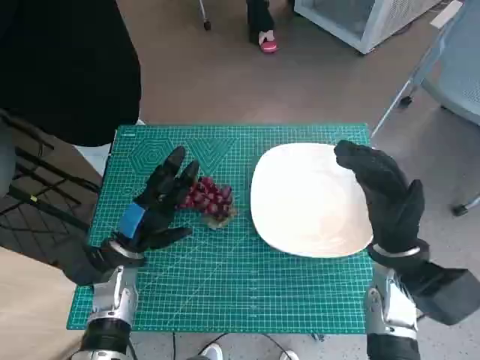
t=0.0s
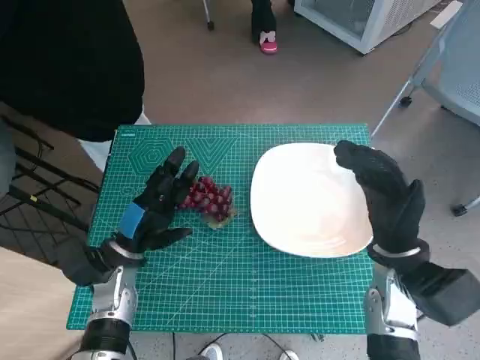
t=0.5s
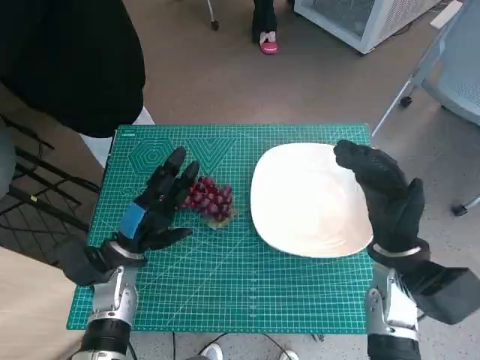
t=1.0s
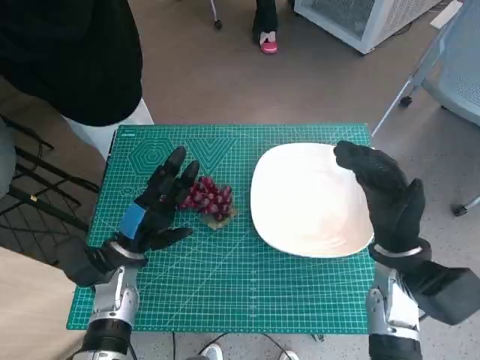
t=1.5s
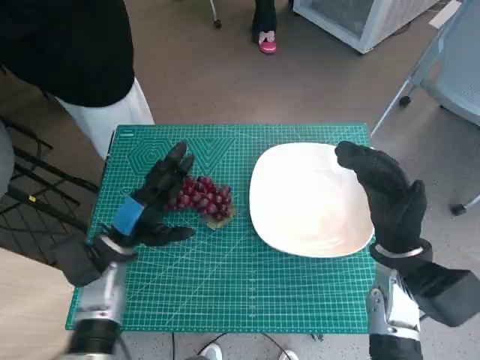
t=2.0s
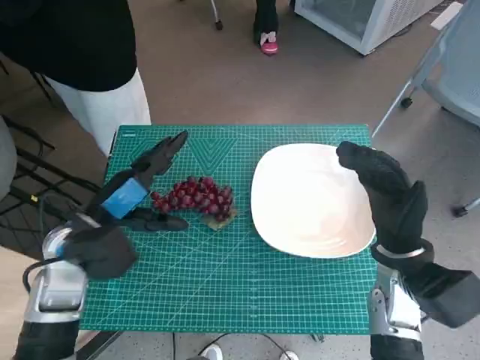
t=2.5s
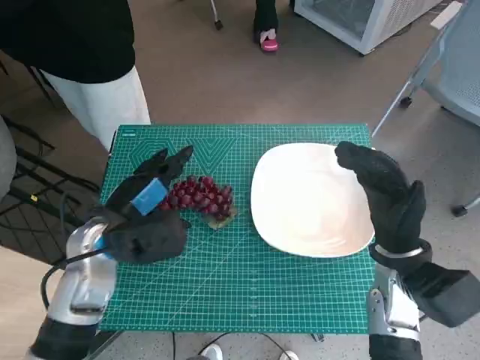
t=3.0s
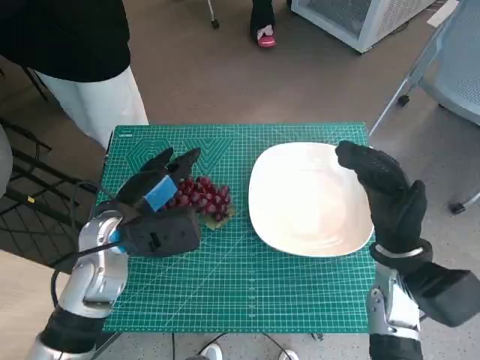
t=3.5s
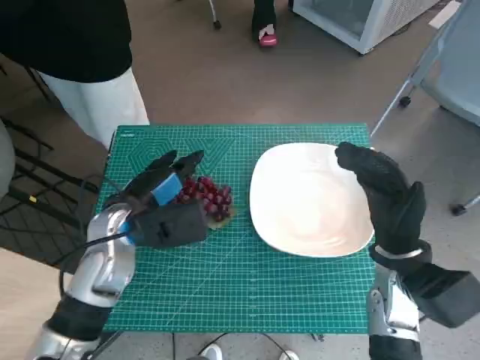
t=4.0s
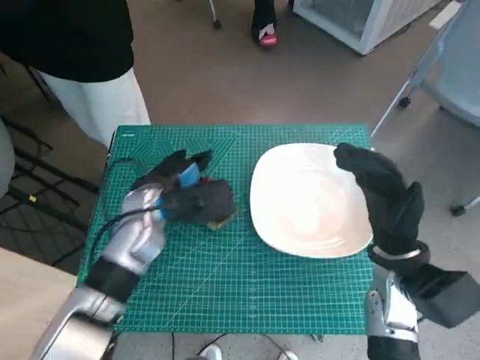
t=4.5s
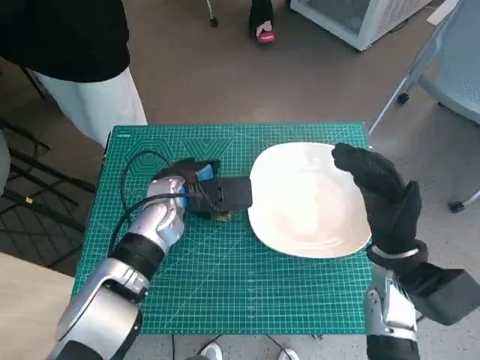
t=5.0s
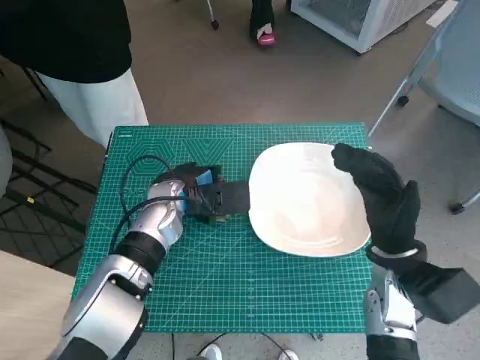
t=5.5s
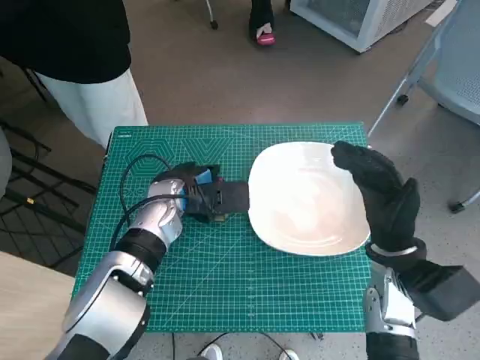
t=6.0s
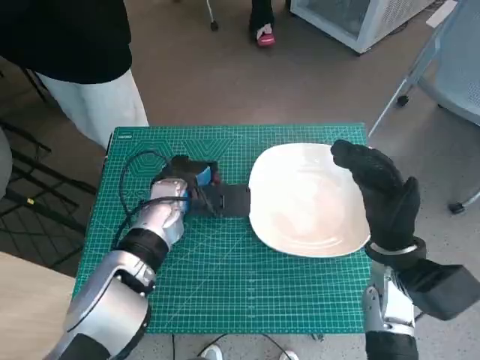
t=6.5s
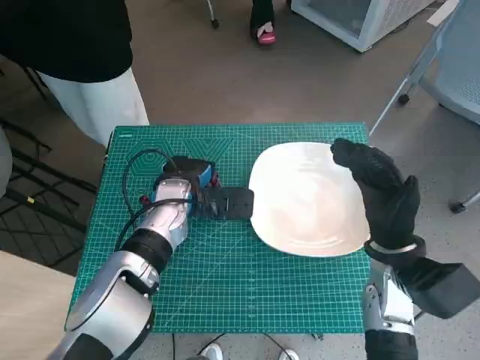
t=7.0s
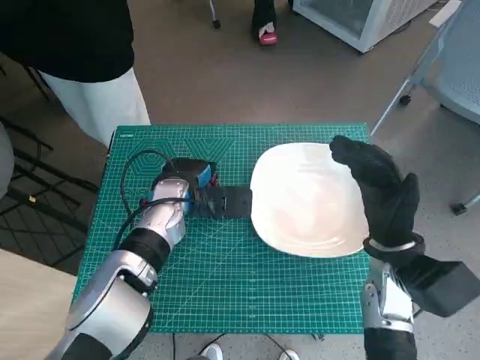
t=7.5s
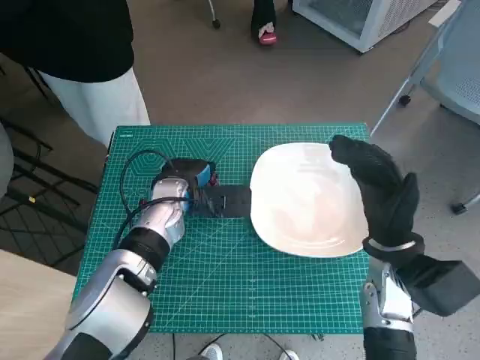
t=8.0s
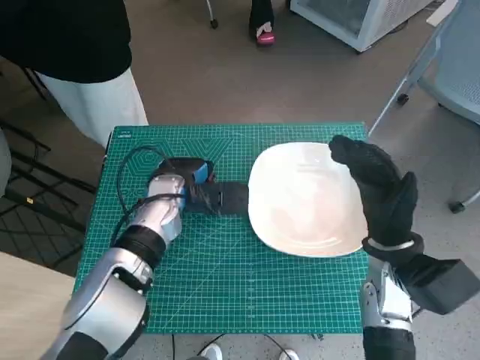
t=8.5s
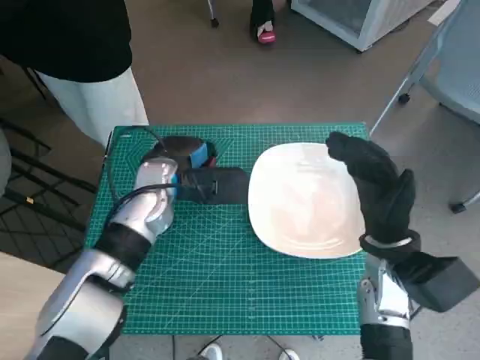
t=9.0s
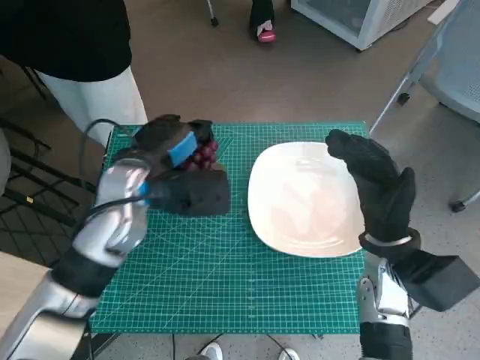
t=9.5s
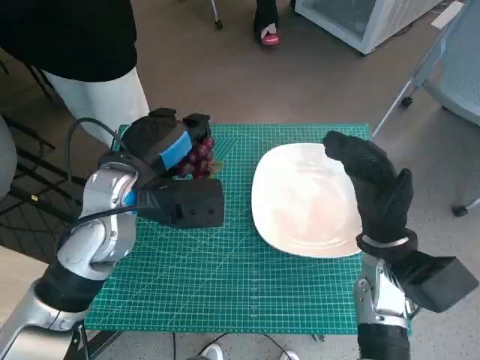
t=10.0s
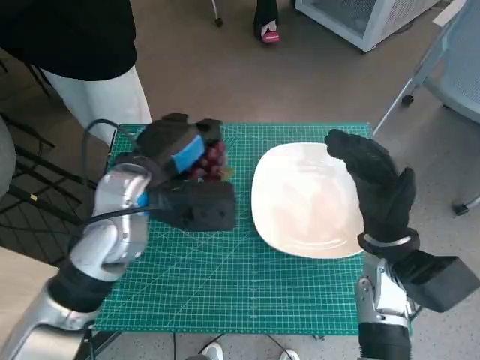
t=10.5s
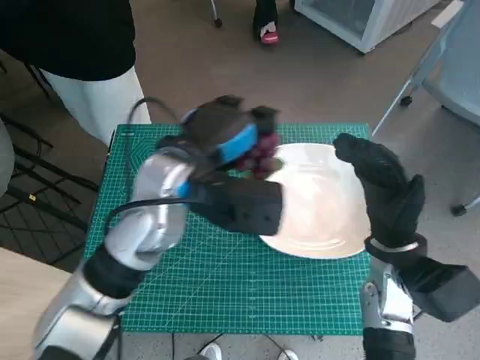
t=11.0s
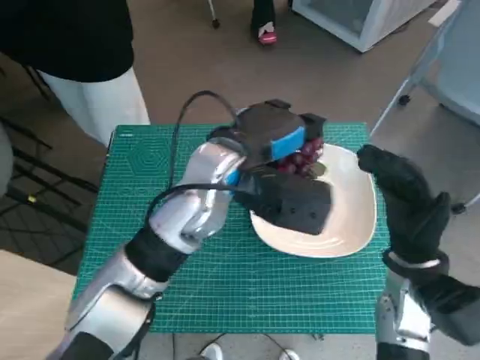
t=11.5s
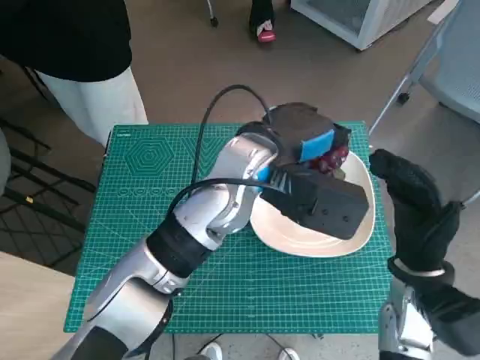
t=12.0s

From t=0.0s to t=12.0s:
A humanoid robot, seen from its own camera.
Task of the whole recording: Pick up the grapes and put them on the plate.
Step, from t=0.0s to t=6.5s: Grasp the grapes with left hand.
From t=2.0s to t=4.0s: The left hand shifts roughly 10 cm upward.
From t=4.0s to t=6.0s: The left hand moves forward, about 5 cm.
From t=6.0s to t=8.0s: There are only small adjustments of the hands.
From t=8.0s to t=10.0s: The left hand is displaced upward and backward by some 10 cm.
From t=10.0s to t=12.0s: The left hand goes approximately 15 cm to the right.

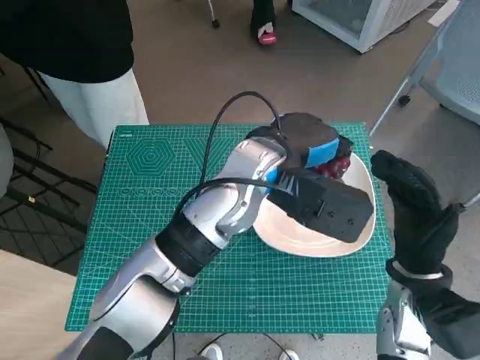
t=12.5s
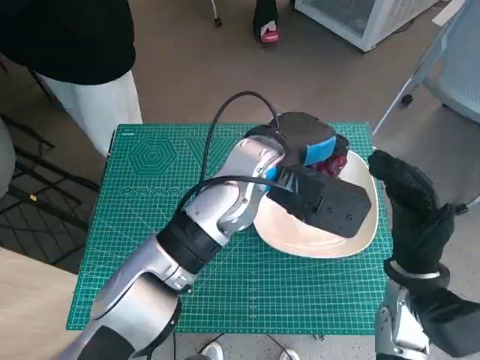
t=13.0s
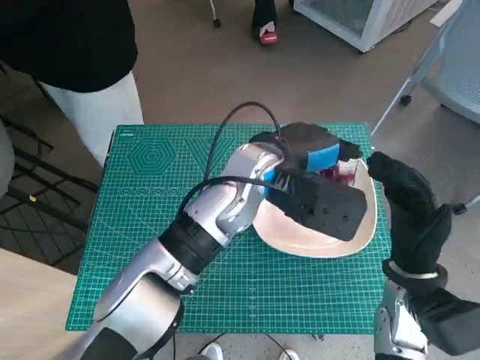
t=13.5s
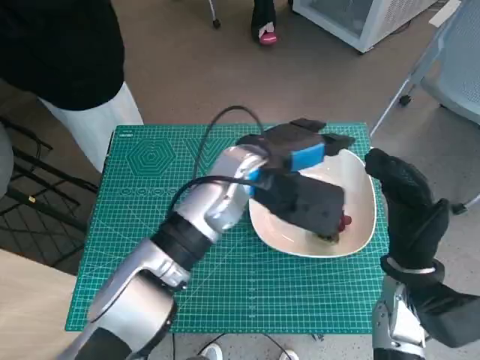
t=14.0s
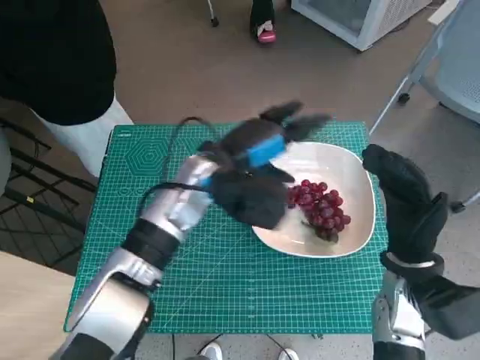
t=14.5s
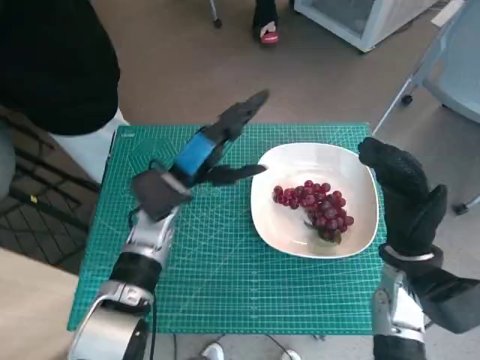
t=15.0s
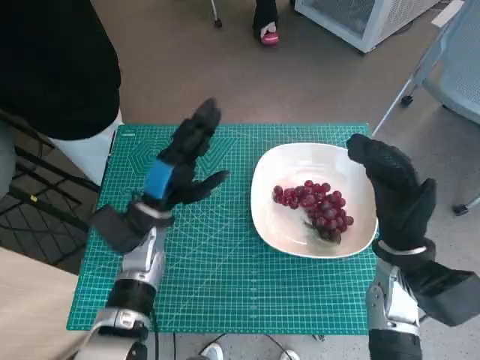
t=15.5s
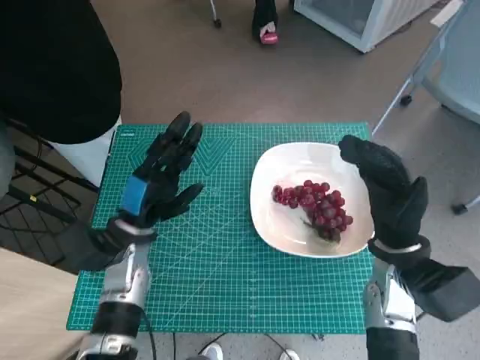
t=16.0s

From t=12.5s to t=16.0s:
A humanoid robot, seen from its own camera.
Task of the whole recording: Pick up the grapes and put them on the plate.
From t=12.5s to t=14.5s: The left hand travels to the left and downward by some 10 cm.
From t=14.5s to t=16.0s: The left hand moves to the left, downward and backward, some 15 cm.

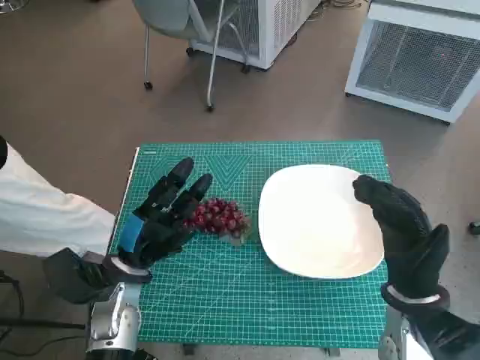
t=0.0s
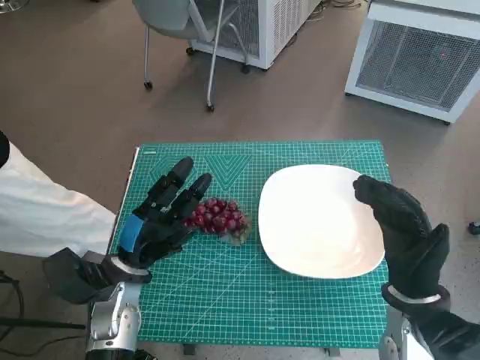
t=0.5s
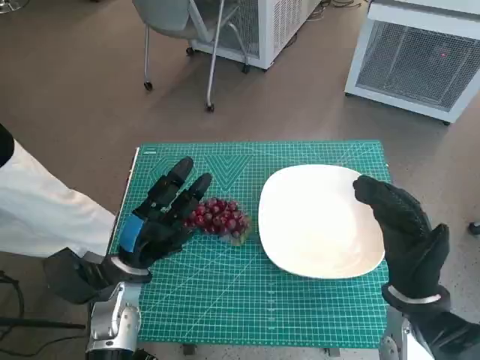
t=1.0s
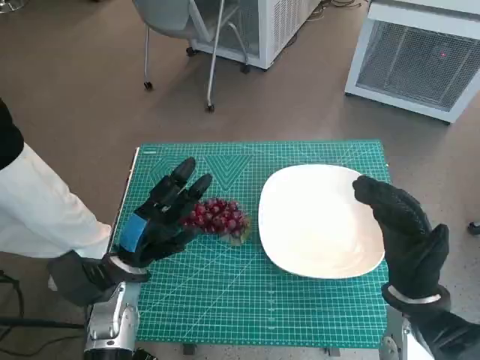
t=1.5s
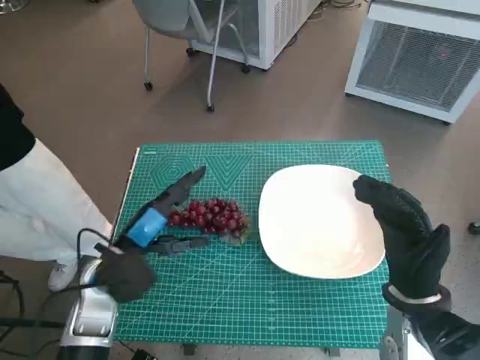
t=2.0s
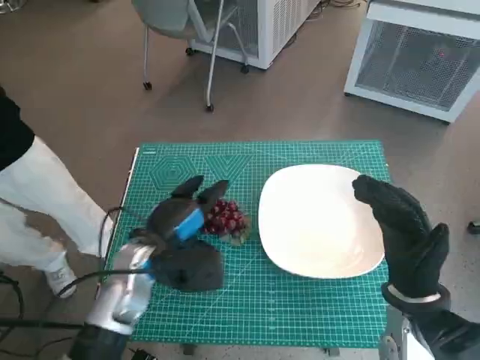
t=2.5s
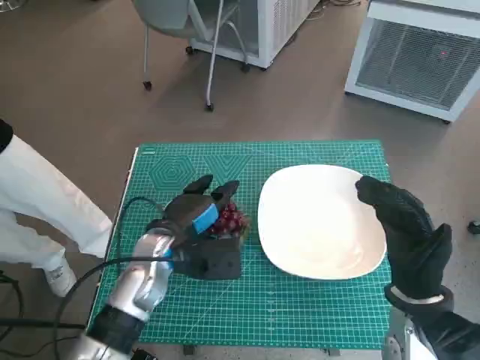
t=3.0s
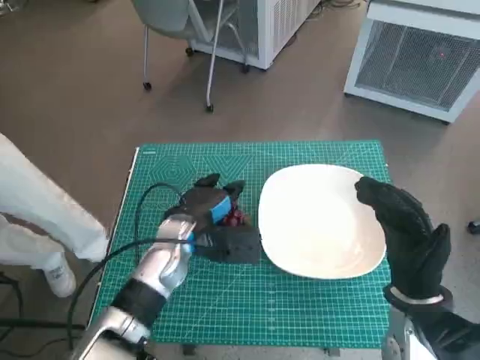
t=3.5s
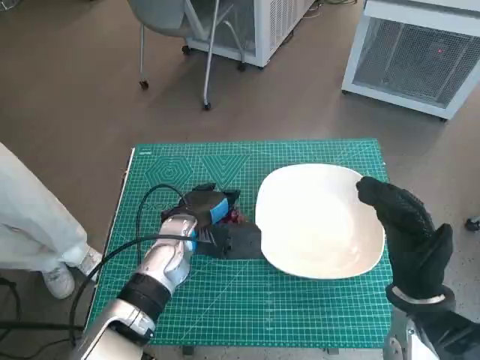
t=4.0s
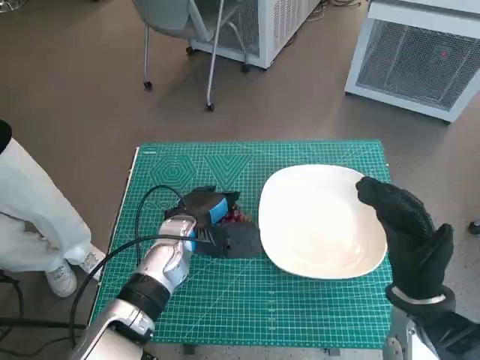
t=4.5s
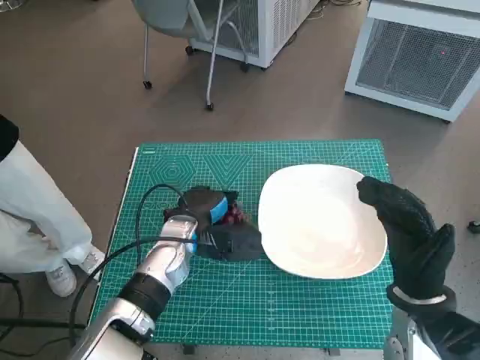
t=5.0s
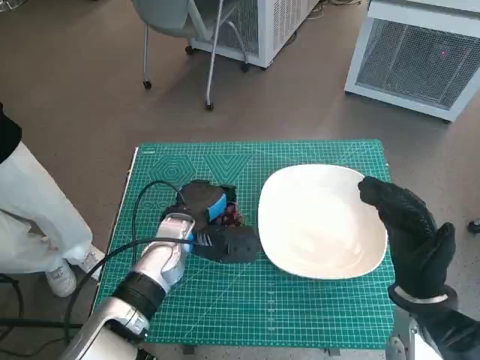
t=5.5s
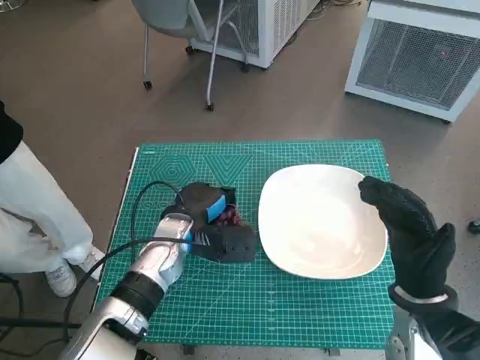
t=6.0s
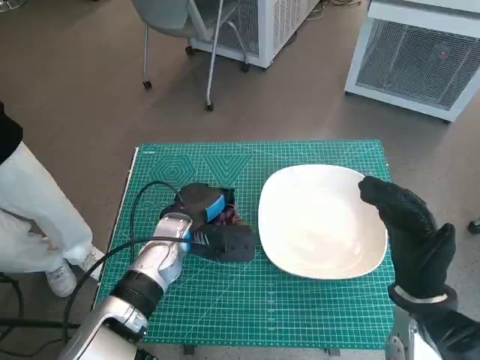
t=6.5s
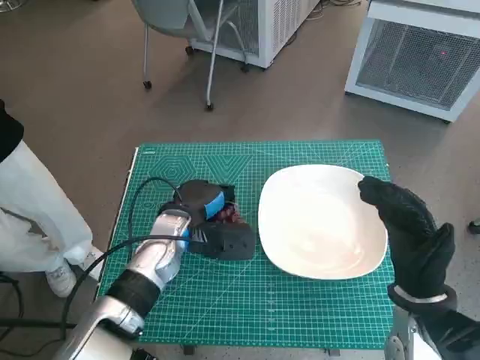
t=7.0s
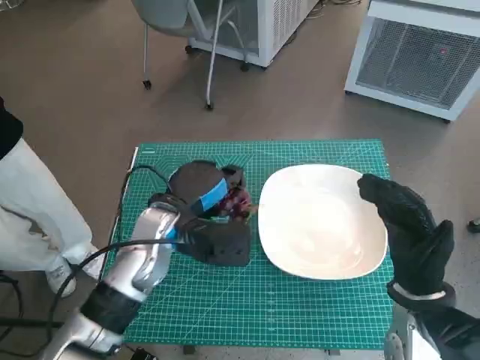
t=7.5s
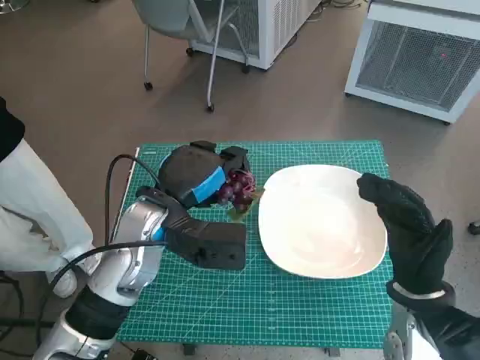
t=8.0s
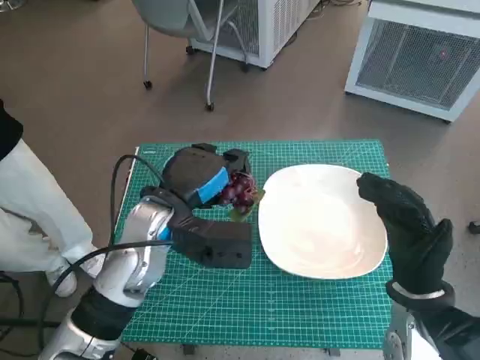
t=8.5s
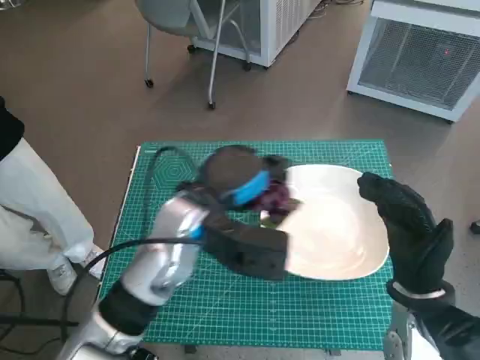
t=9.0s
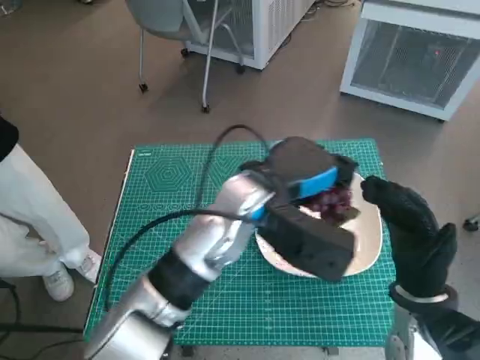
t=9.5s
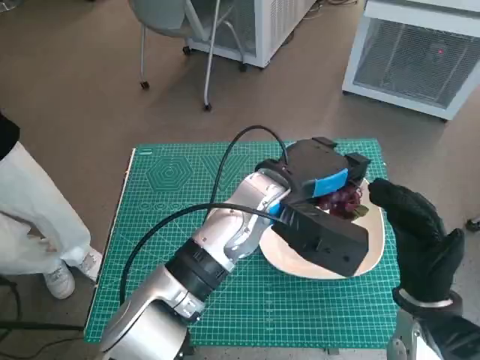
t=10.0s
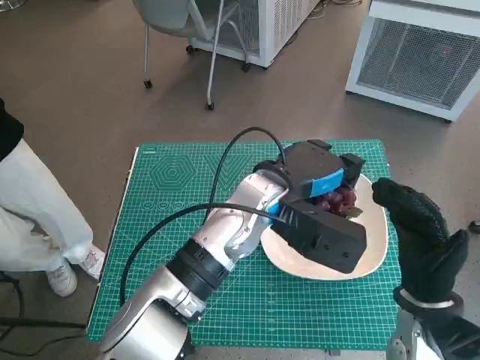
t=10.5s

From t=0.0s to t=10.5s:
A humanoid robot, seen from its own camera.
Task of the whole recording: Pick up the grapes and put them on the plate.
Step, from t=0.0s to t=5.0s: Grasp the grapes with left hand.
From t=2.0s to t=4.0s: The left hand goes some 10 cm to the right and forward.
From t=4.0s to t=6.5s: The hands make only small movements.
From t=6.5s to t=8.5s: The left hand shifts about 10 cm upward.
From t=8.5s to t=10.5s: The left hand goes about 15 cm to the right.
